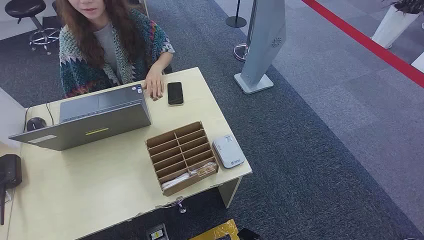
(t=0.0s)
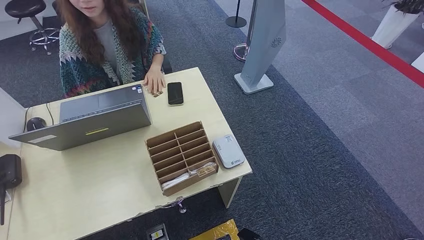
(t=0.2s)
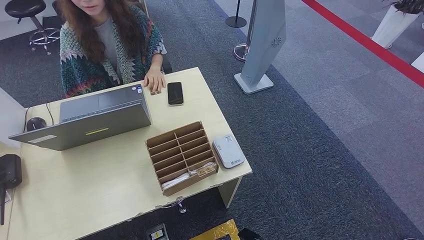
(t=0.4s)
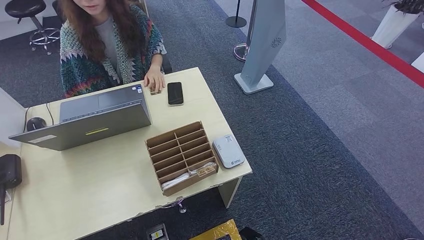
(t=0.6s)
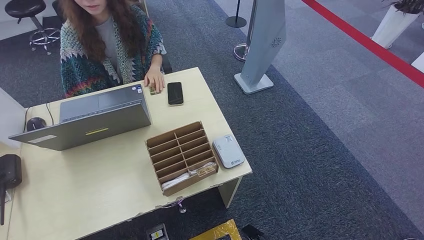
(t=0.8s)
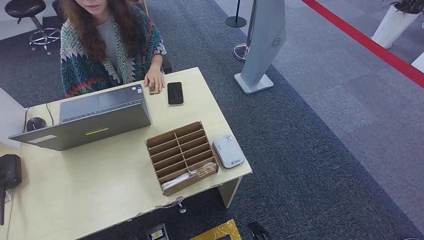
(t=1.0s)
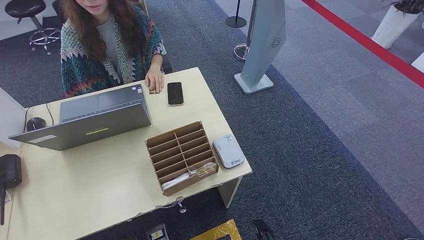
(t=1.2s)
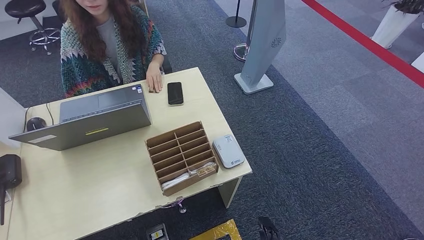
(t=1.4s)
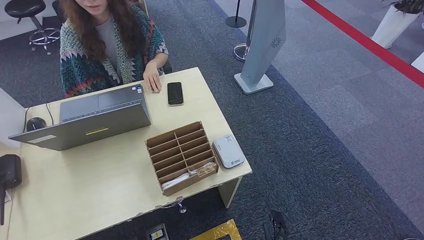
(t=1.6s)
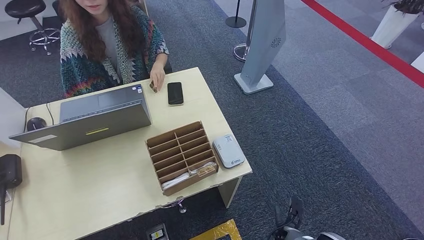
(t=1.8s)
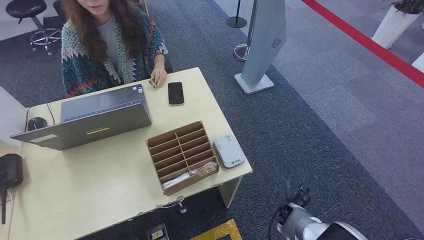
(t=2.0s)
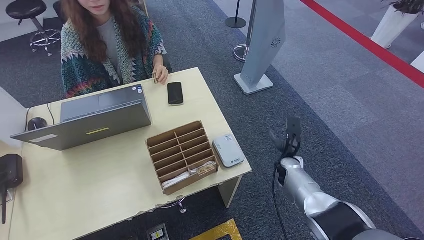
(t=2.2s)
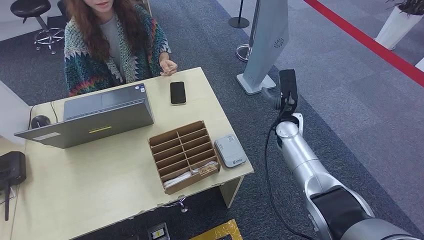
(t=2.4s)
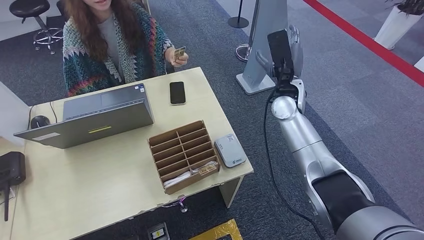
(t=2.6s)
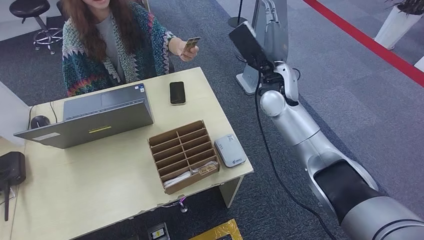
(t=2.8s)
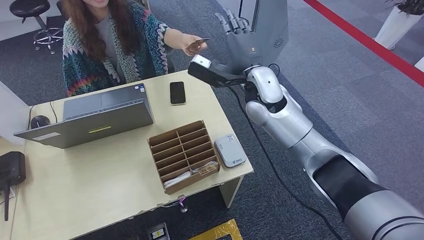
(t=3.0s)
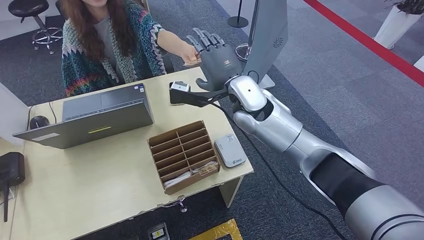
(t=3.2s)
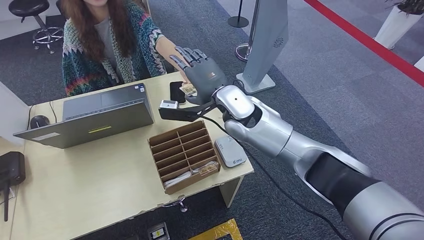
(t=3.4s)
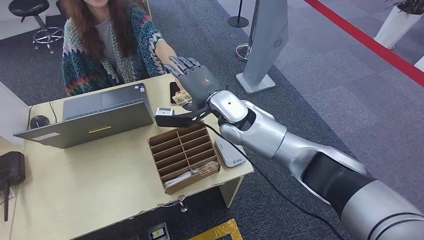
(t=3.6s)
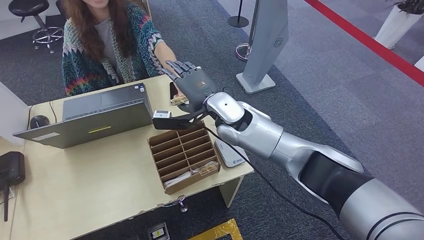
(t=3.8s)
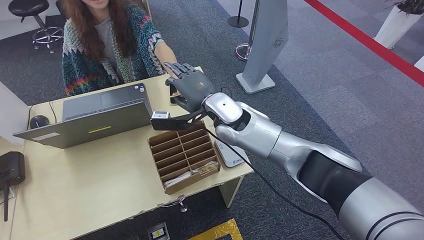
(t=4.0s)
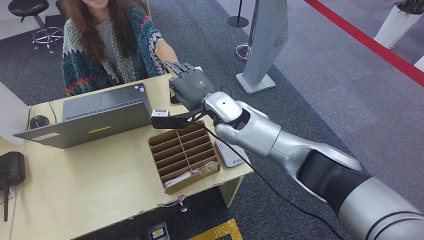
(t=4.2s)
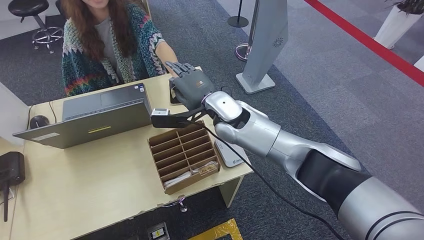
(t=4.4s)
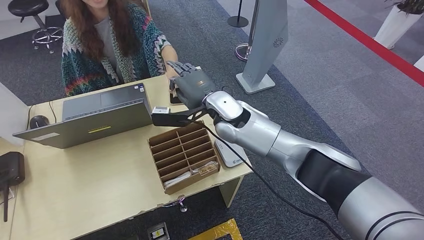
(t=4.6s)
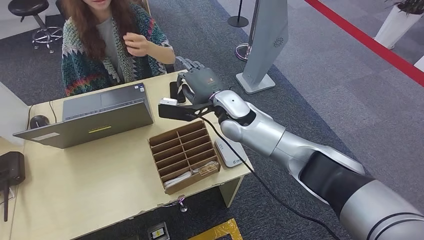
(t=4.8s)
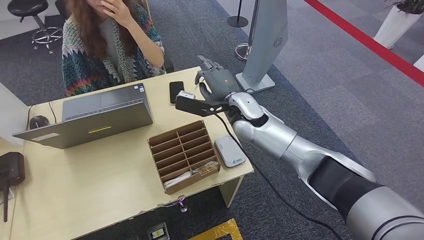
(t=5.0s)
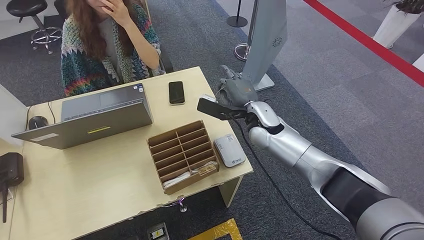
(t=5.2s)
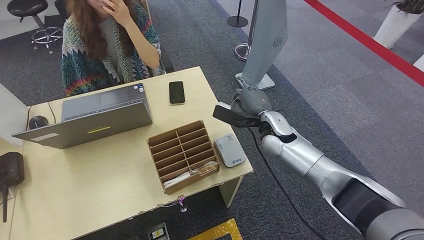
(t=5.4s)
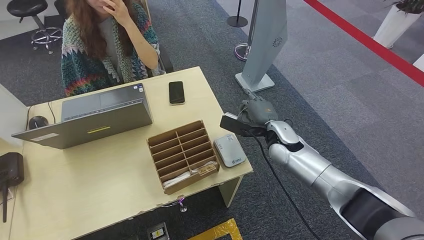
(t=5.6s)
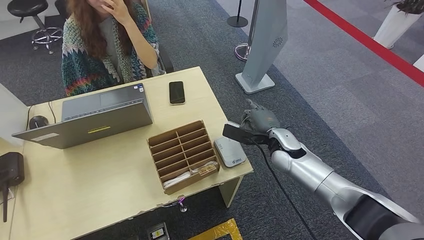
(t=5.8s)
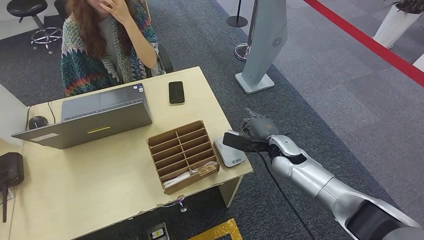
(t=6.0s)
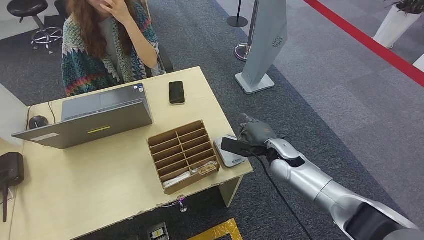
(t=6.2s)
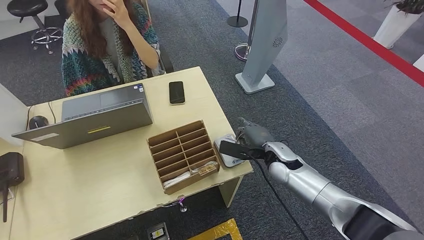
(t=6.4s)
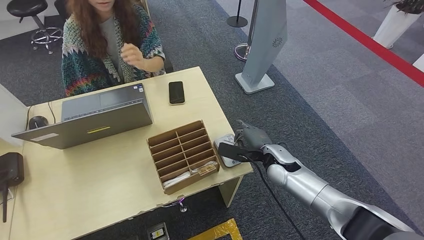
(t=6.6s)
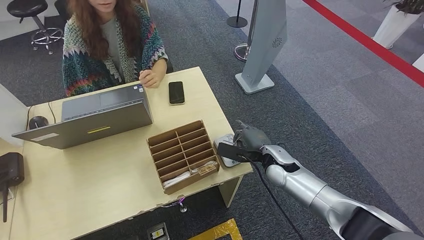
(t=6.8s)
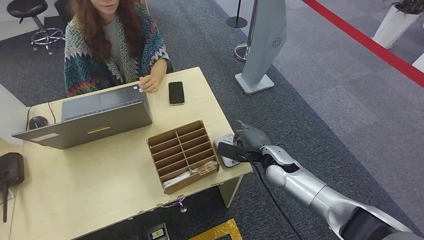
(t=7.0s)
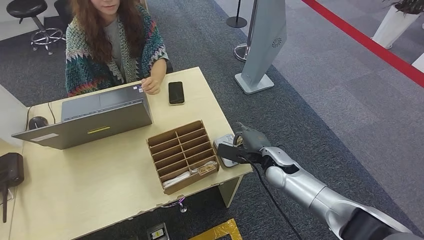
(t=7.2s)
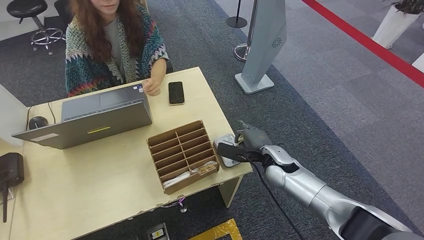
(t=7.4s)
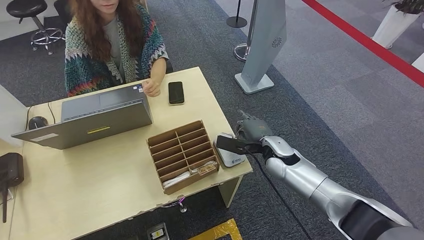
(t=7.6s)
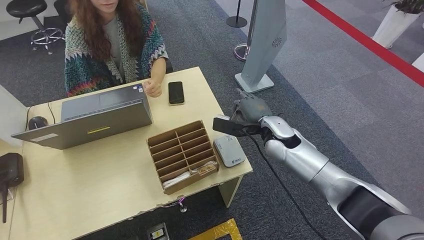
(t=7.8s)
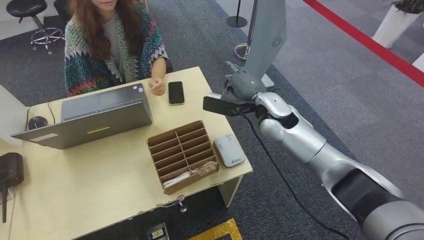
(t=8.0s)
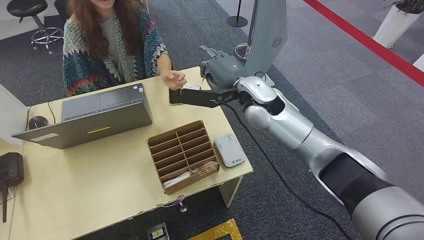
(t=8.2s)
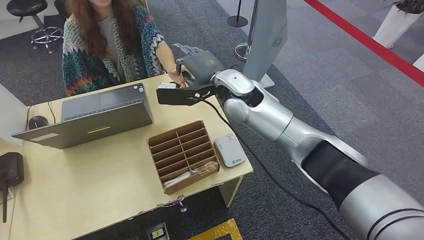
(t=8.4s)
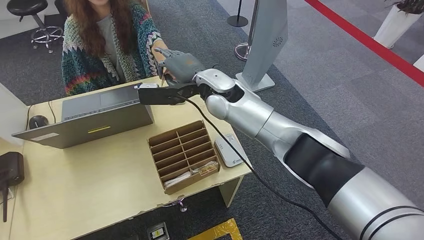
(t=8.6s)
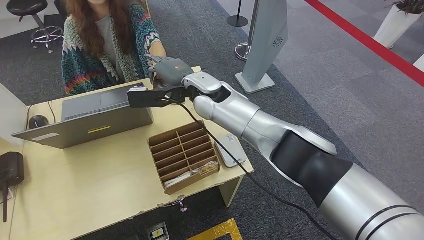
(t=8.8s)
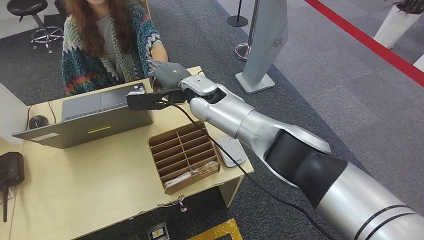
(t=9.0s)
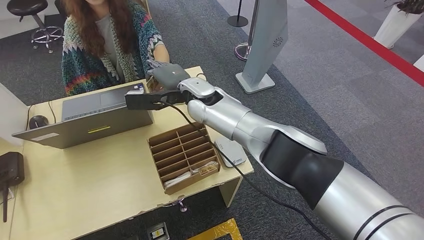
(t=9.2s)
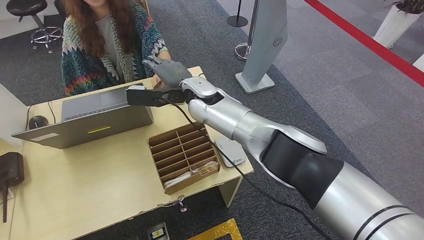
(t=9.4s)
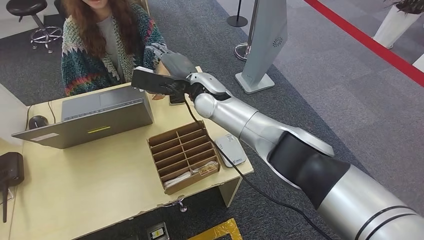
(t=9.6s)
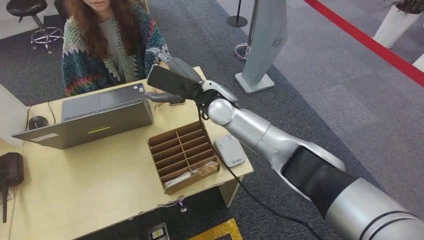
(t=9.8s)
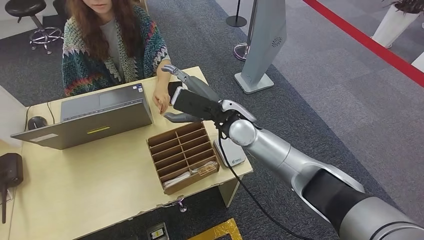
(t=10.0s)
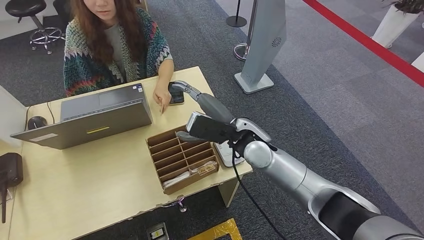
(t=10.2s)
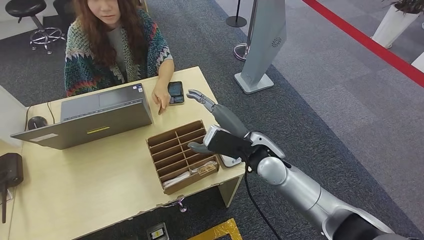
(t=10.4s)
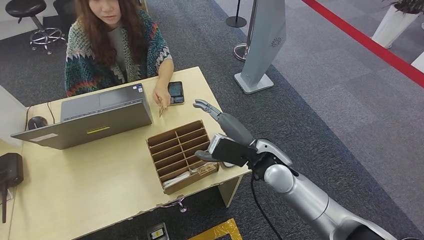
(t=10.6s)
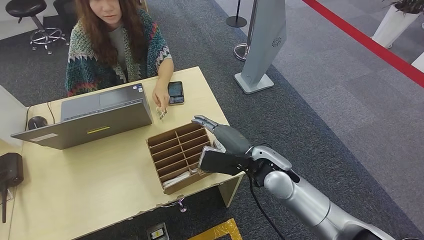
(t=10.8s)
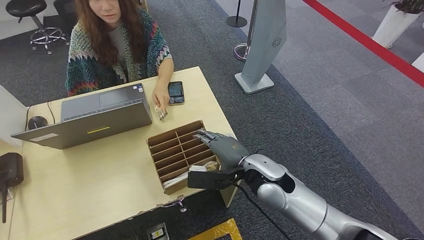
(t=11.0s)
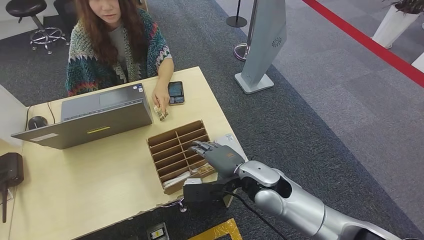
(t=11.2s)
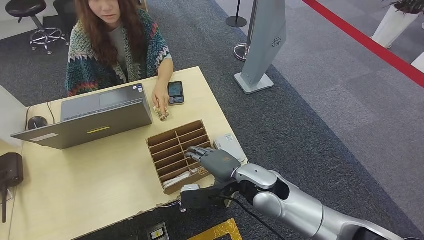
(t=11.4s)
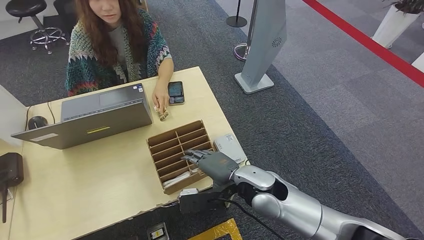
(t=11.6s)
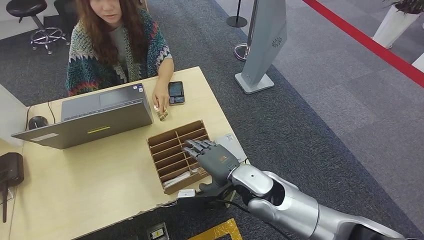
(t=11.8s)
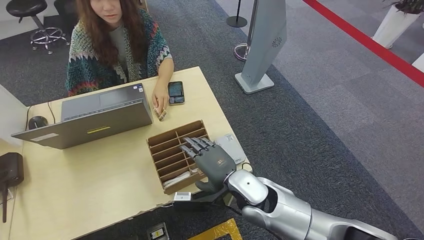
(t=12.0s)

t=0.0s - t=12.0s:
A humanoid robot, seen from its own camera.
Step, t=0.0s - t=4.2s: Take the ID card from the person's hand.
Step, t=4.4s - t=6.8s: Place the ID card on the card reader.
Step, t=7.0s - t=10.4s: Hand the ID card to the person.
t=1.6s - t=3.0s: The right hand moves upward and forward, some 50 cm.
t=3.0s - t=4.4s: The right hand is displaced to the left and downward by roughly 10 cm.
t=4.4s - t=6.0s: The right hand heads to the right, downward and backward, covering approximately 20 cm.
t=6.0s - t=7.6s: The hands stay close to where they were, moving slightly.
t=7.6s - t=9.0s: The right hand heads to the left, upward and forward, covering roughly 30 cm.
t=10.4s - t=12.0s: The right hand shifts approximately 10 cm downward, to the left and backward.

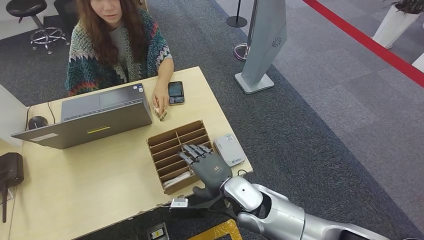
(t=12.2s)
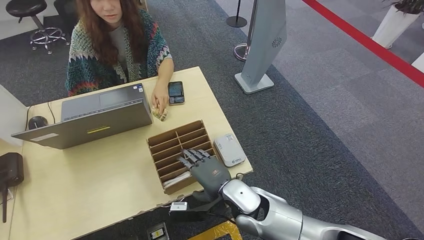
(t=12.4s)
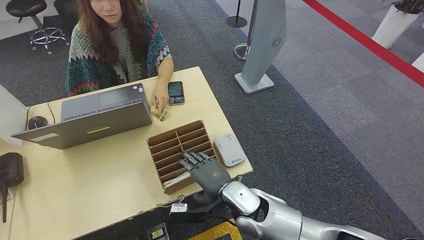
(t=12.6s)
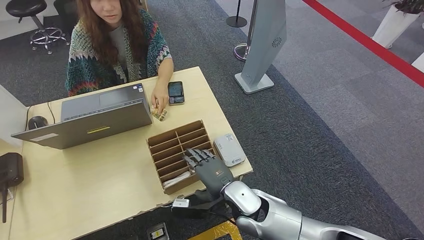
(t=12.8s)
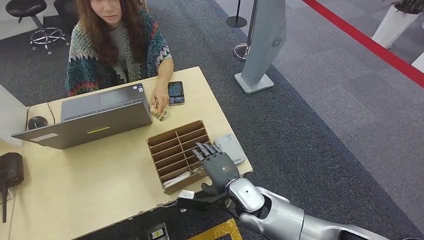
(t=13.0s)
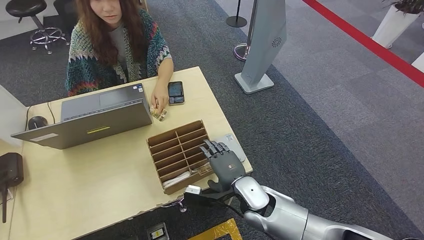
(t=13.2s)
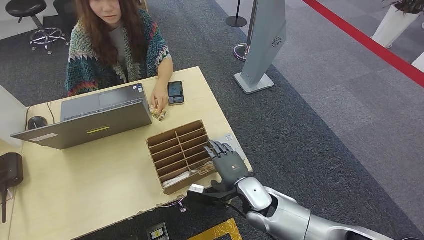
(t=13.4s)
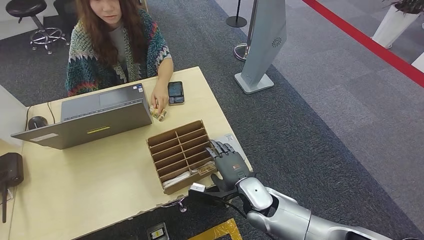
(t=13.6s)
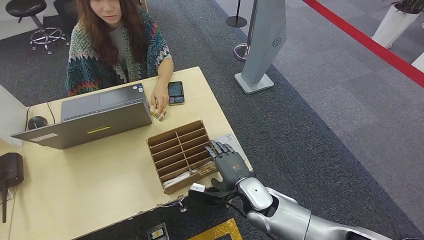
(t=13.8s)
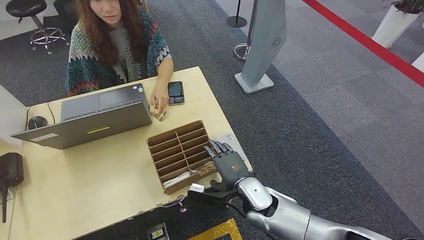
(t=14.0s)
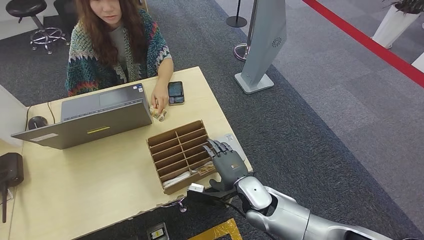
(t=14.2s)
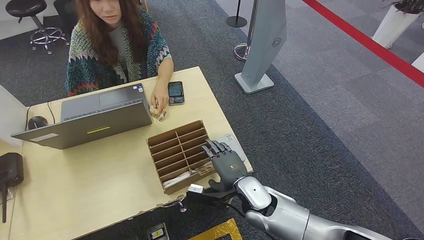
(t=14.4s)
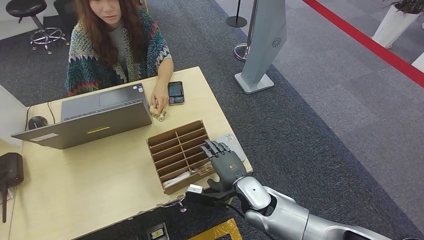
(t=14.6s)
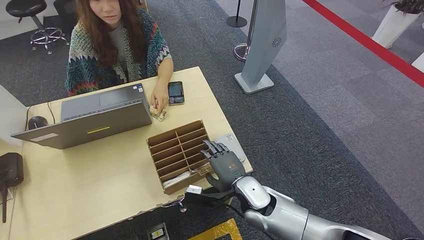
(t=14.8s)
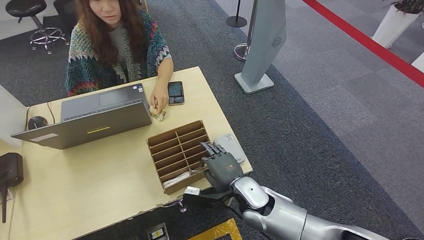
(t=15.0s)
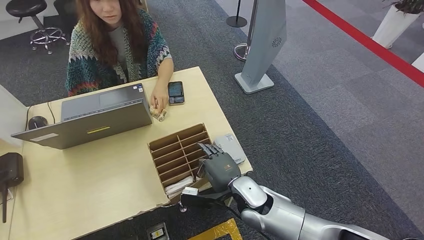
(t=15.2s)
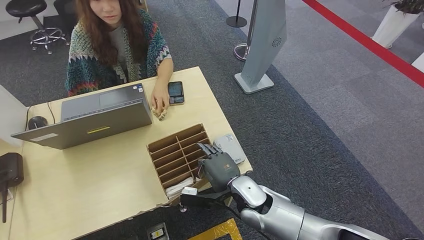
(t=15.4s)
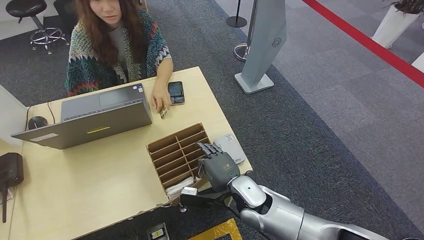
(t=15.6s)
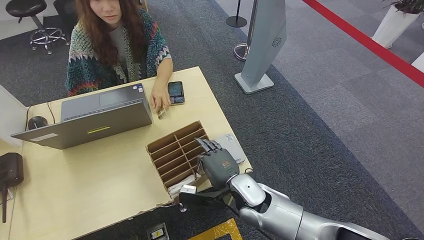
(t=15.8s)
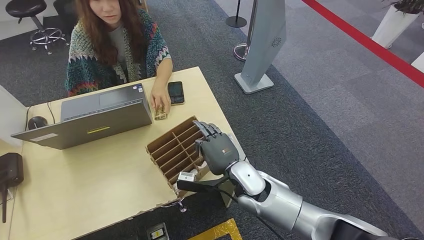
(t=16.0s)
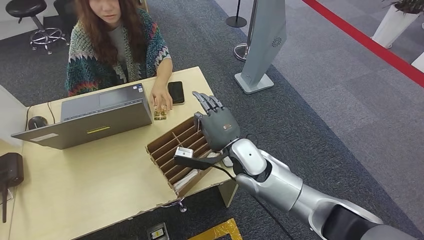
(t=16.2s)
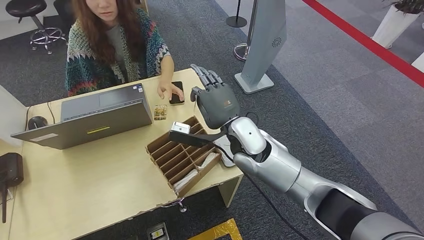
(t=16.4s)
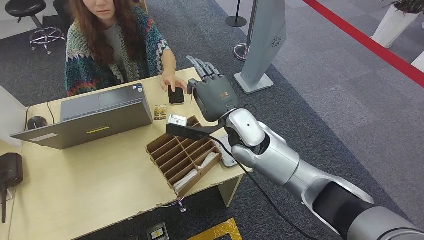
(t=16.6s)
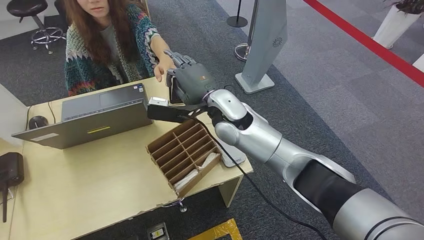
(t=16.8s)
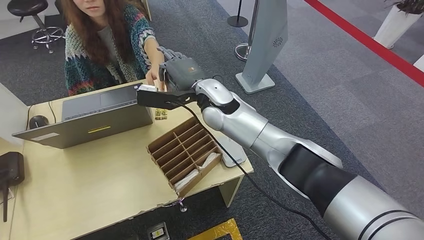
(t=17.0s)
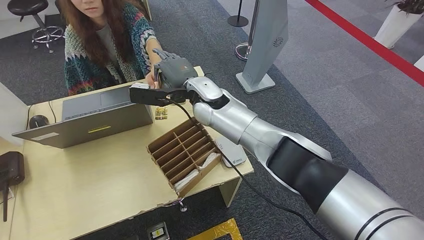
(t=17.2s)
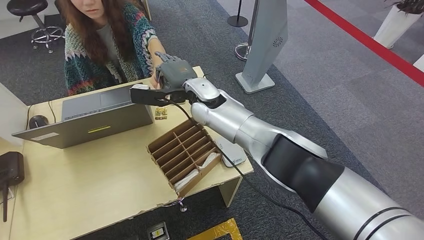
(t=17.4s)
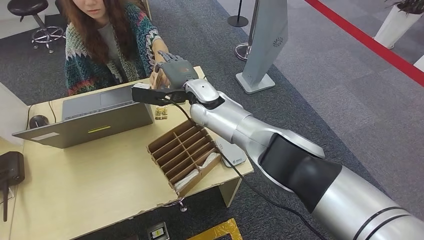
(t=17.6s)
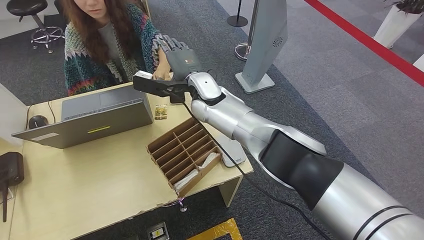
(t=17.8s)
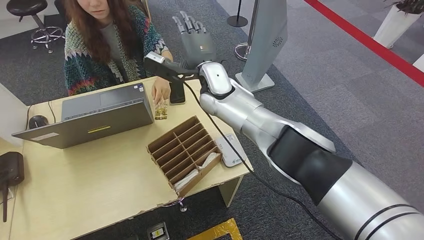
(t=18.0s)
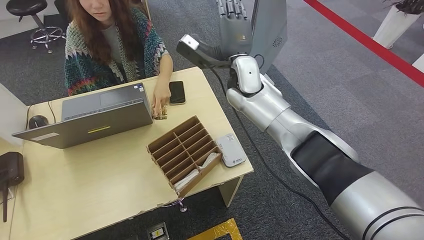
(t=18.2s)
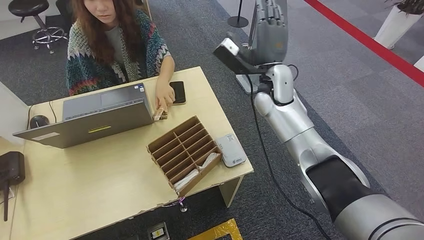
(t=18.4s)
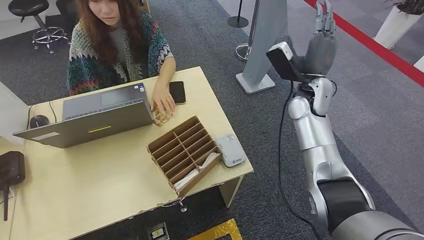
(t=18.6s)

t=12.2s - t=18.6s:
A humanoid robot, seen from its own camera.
Step, t=12.2s - t=16.0s: Pick up the room key from the key card box.
Step, t=16.4s - t=18.4s: Hand the room key to the person.
t=12.2s - t=13.8s: The right hand moves approximately 5 cm.
t=13.8s - t=15.4s: The hands make only small movements.
